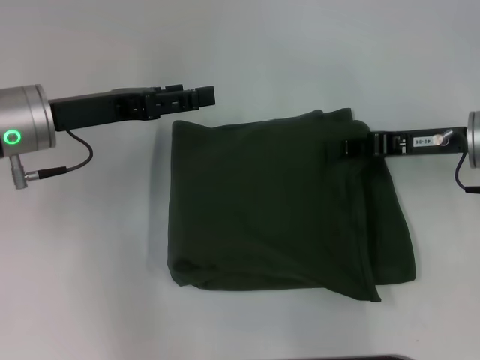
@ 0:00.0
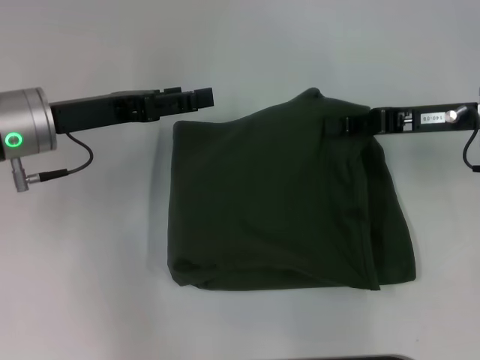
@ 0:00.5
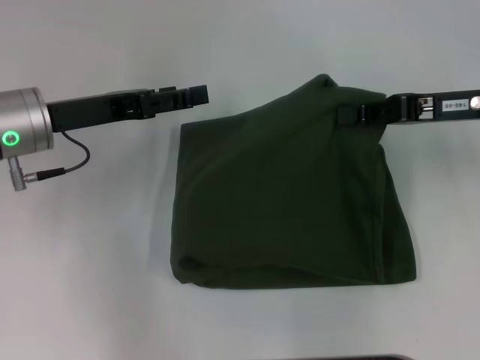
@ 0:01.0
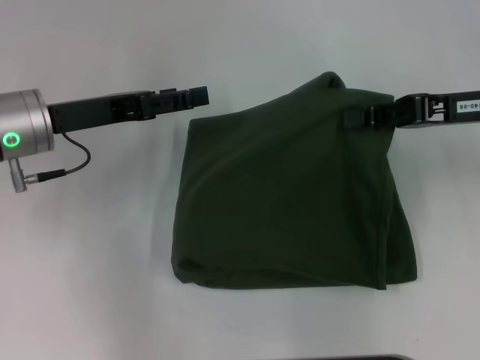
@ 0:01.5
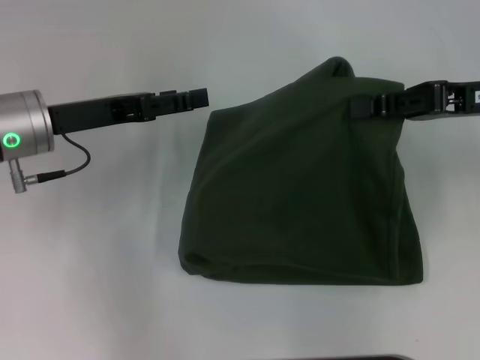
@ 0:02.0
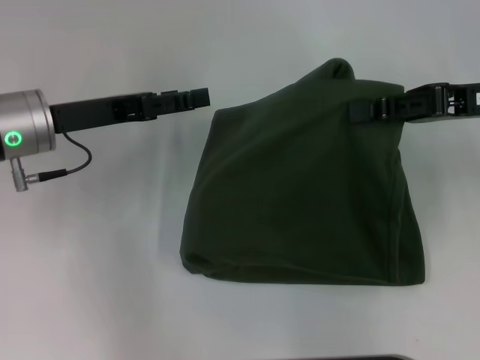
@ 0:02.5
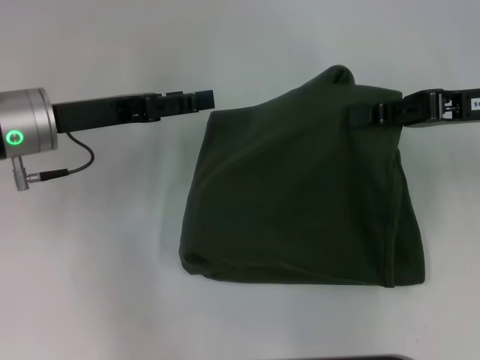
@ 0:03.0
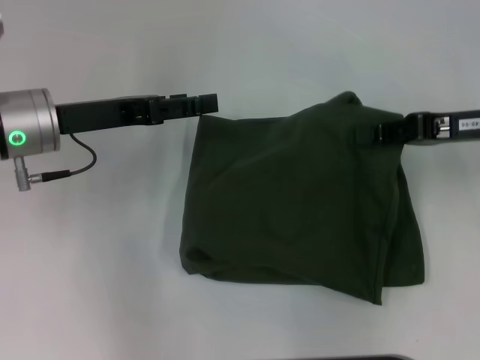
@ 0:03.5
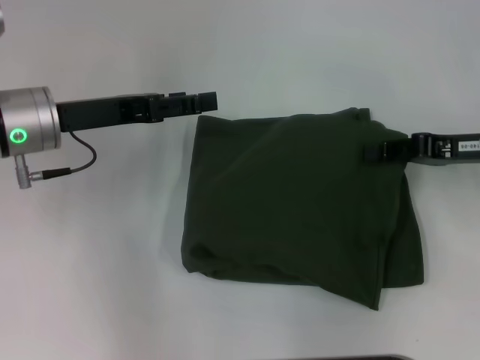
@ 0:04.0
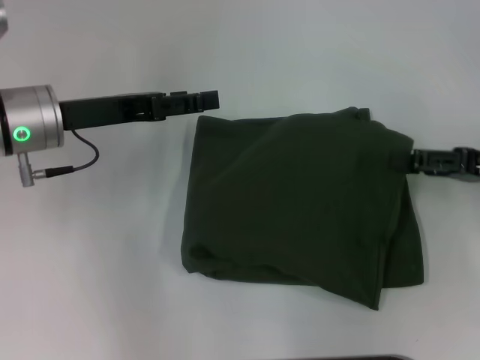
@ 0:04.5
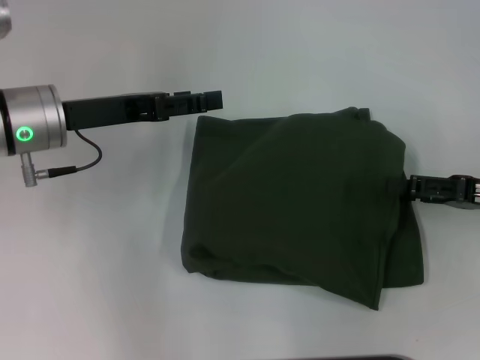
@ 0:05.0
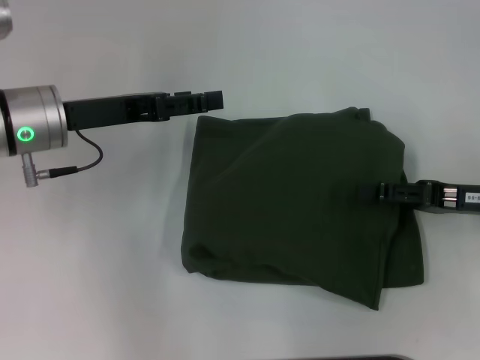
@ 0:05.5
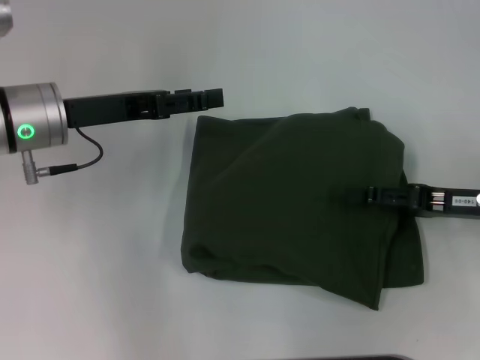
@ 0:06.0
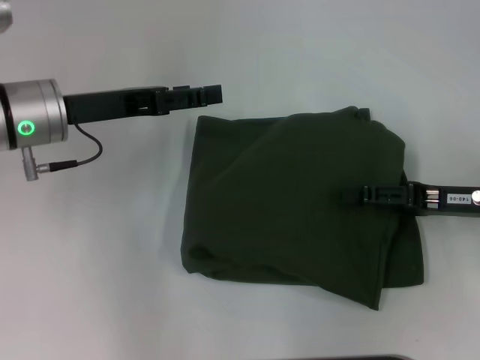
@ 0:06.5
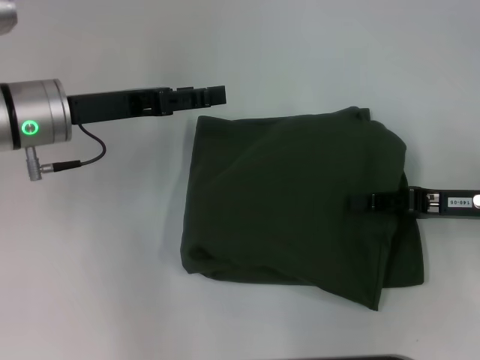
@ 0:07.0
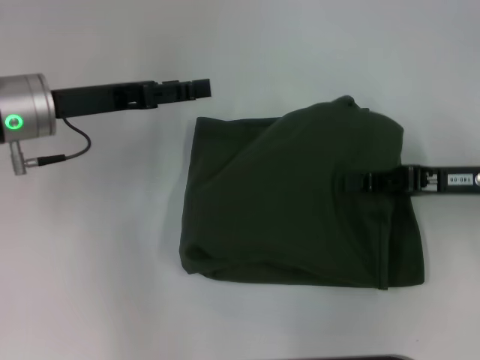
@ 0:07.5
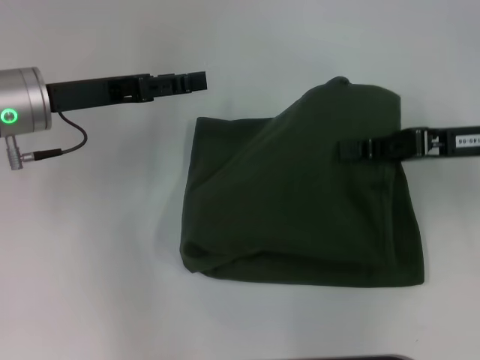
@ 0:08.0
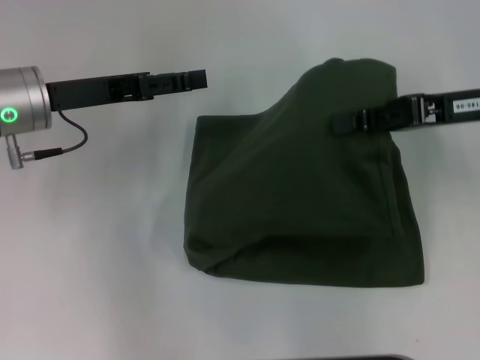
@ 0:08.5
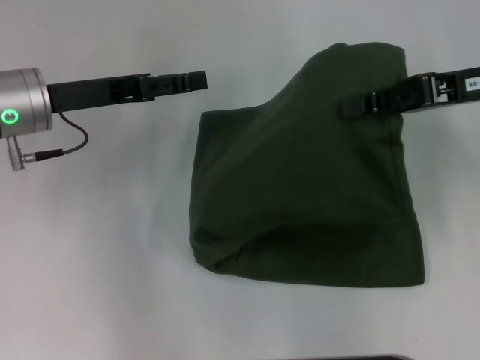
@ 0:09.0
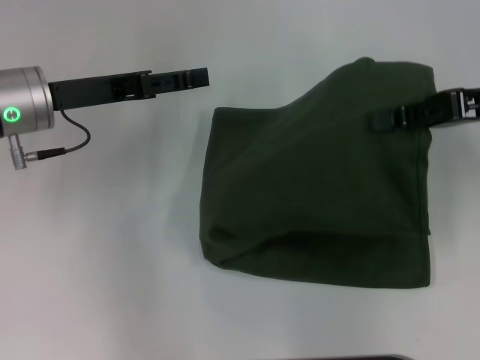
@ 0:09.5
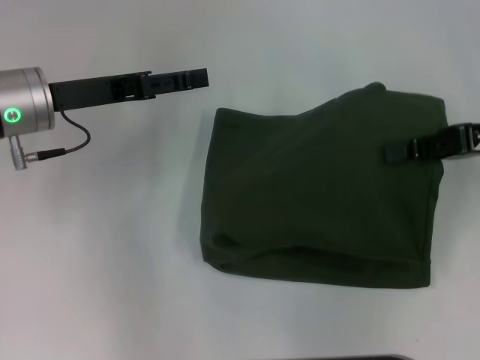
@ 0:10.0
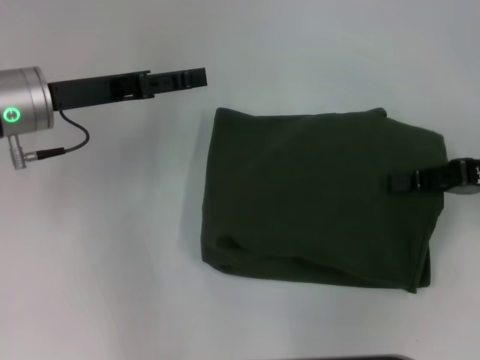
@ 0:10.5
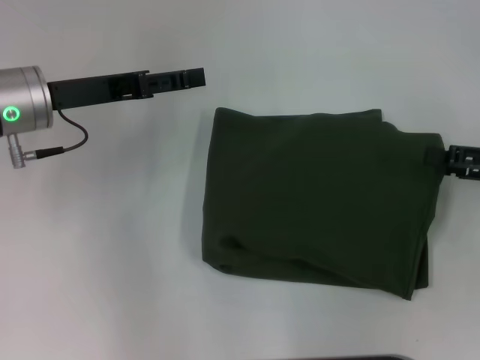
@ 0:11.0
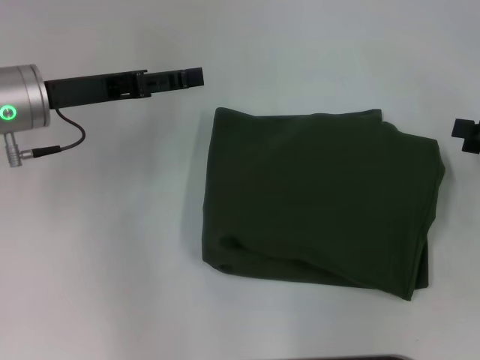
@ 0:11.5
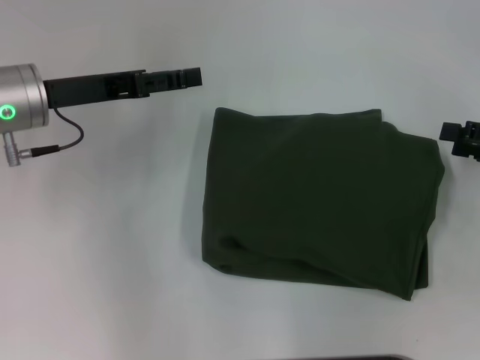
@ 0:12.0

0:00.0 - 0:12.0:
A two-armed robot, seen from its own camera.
0:00.0 - 0:02.0: The right gripper heads upward, covering about 5 cm.
0:02.0 - 0:04.0: The right gripper moves downward, some 5 cm.
0:04.0 - 0:06.0: The right gripper changes place by about 5 cm, and opens up.
0:06.0 - 0:08.0: The right gripper is displaced upward by approximately 5 cm, and closes up.
0:08.0 - 0:10.0: The grippers stay close to where they were, moving slightly.
0:10.0 - 0:12.0: The right gripper goes some 5 cm to the right, and opens its fingers.

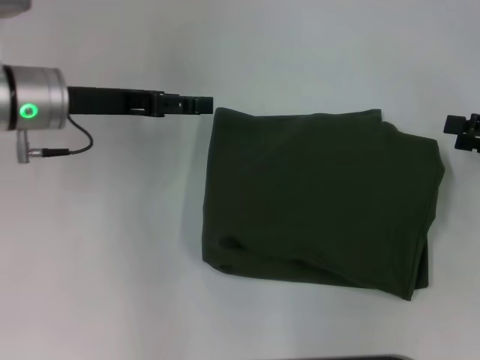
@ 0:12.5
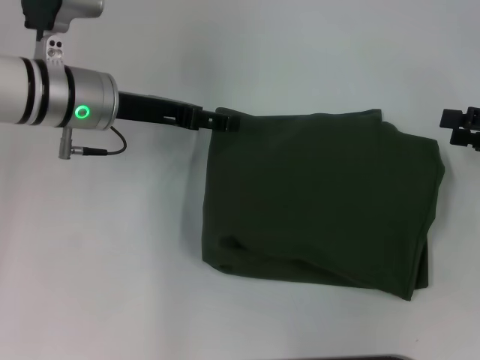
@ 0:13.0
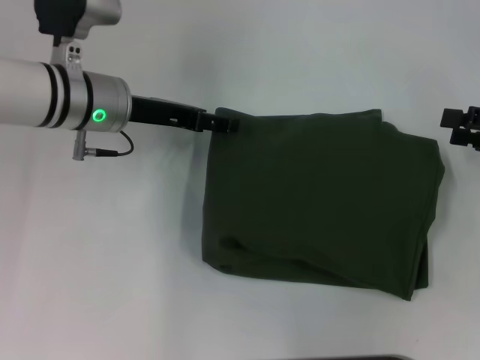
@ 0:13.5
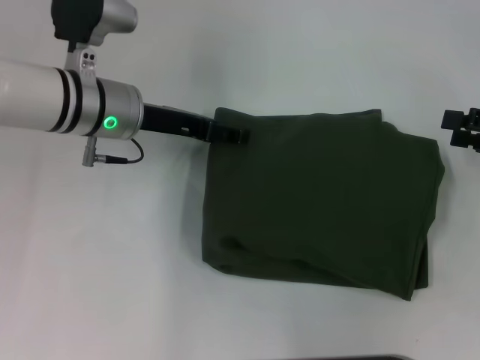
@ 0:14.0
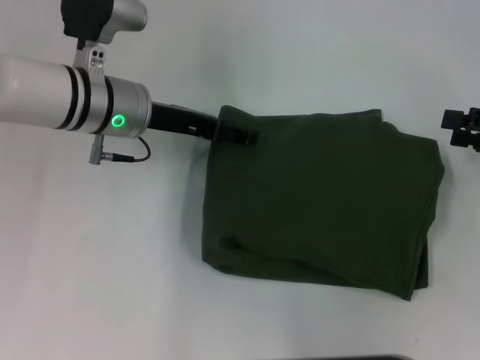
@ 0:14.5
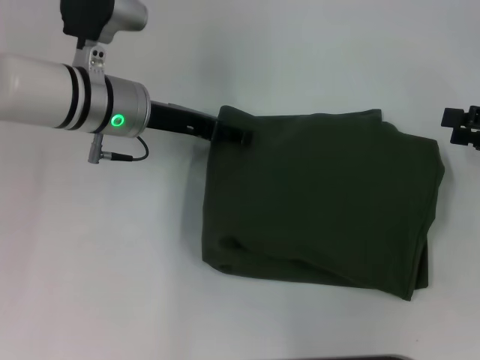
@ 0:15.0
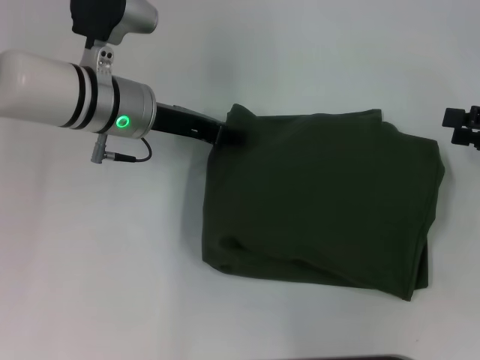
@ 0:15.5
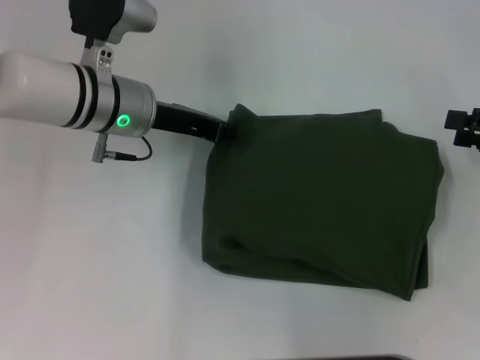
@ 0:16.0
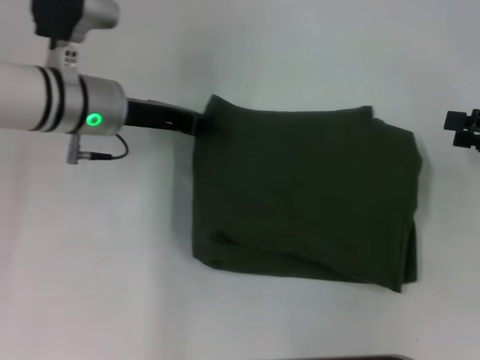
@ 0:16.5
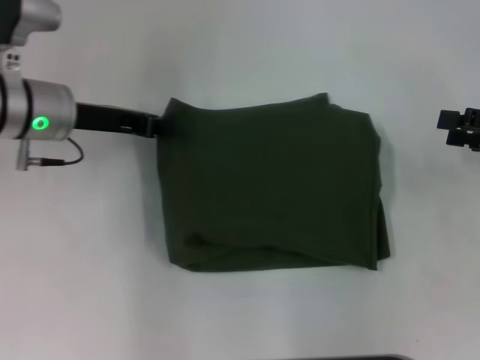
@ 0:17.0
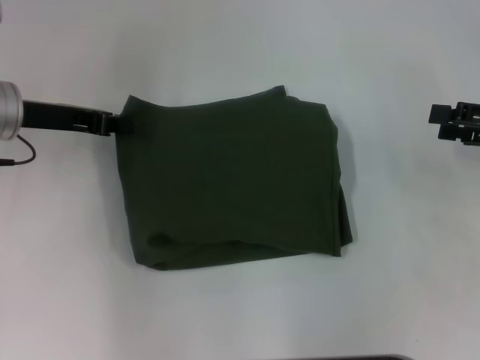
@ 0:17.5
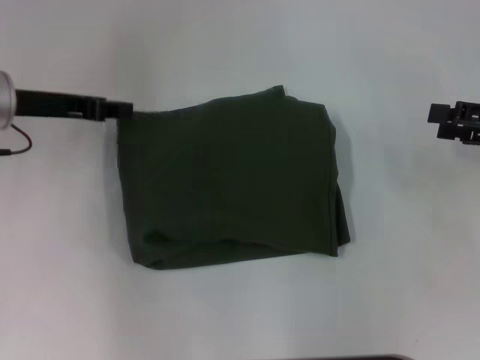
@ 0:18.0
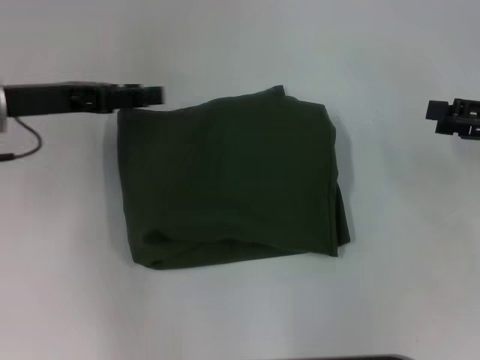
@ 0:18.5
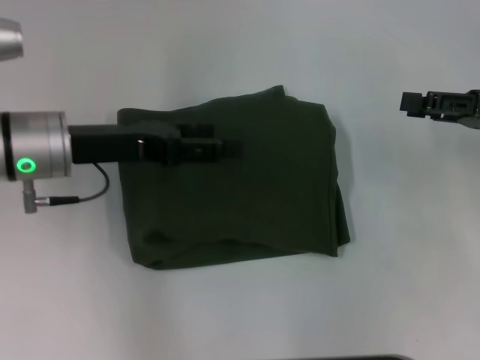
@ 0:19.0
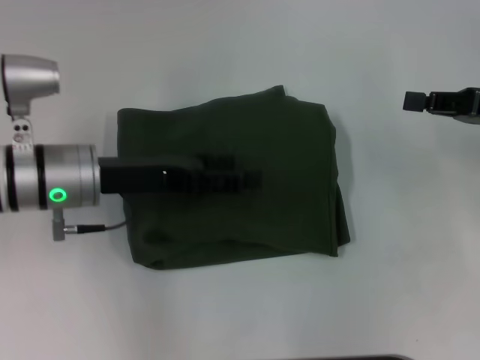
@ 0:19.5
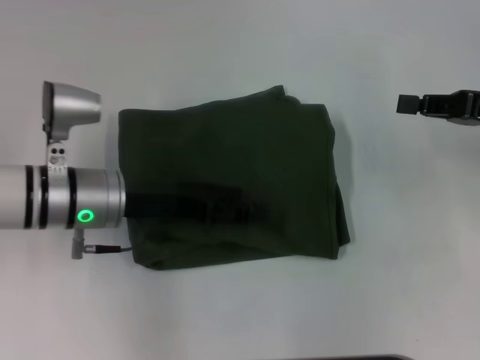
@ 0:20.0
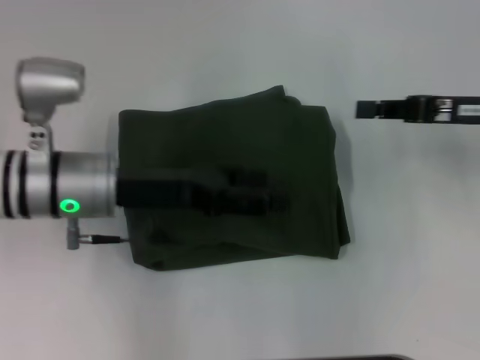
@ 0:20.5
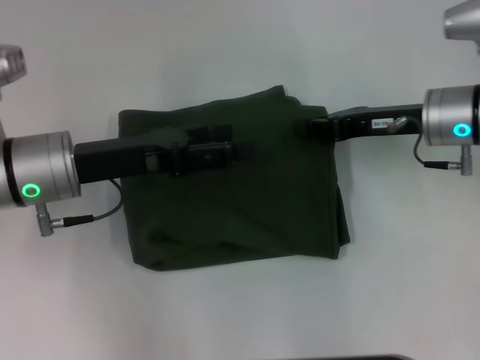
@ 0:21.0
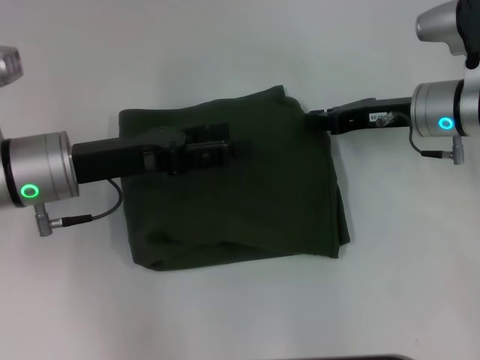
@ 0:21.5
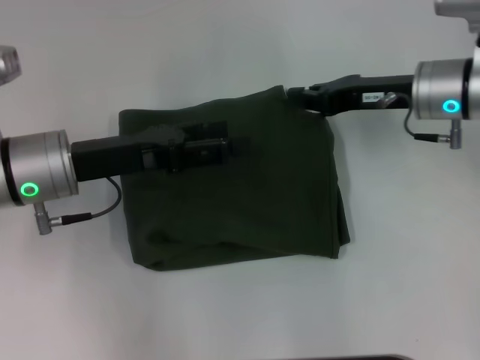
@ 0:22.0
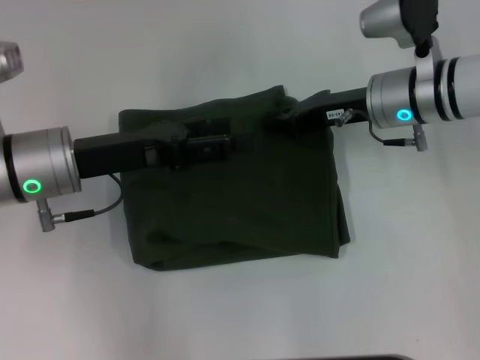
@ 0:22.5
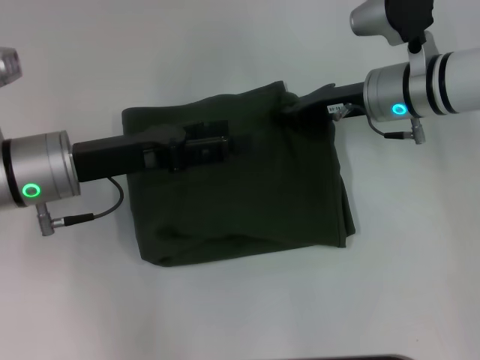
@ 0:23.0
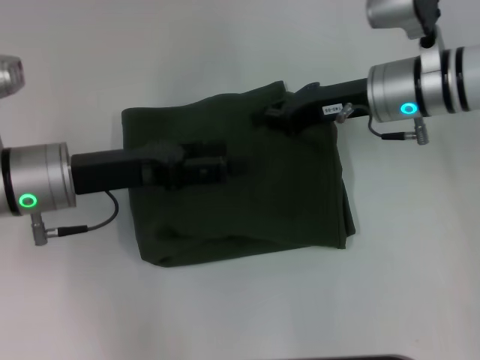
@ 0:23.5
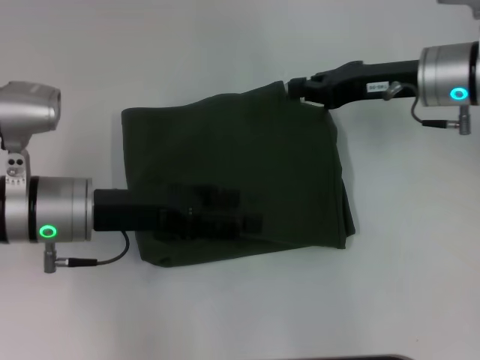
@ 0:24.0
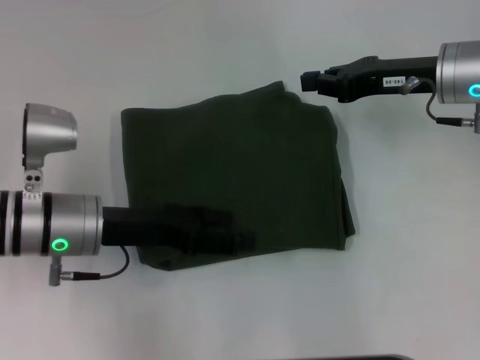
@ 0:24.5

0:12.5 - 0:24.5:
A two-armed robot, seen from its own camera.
0:12.5 - 0:14.5: The left gripper goes about 5 cm to the right.
0:14.5 - 0:16.5: The left gripper closes.
0:16.5 - 0:18.5: The left gripper is displaced to the left by about 10 cm, and opens up.
0:18.5 - 0:20.5: The right gripper travels to the left by approximately 5 cm, and closes its fingers. The left gripper travels to the right and backward by about 10 cm, and opens up.
0:20.5 - 0:22.5: The right gripper goes approximately 15 cm to the left and forward.
0:22.5 - 0:24.5: The left gripper moves roughly 5 cm. The right gripper moves to the right, approximately 5 cm.

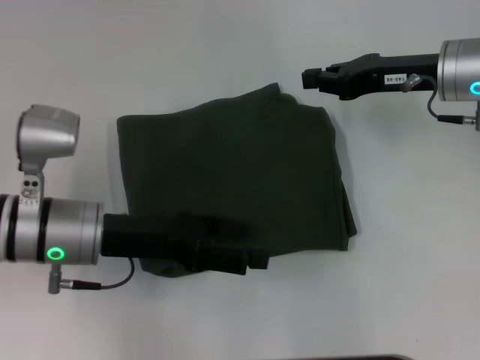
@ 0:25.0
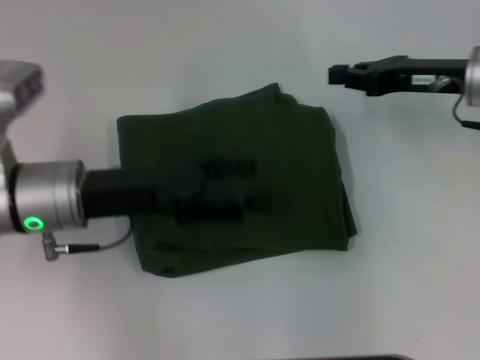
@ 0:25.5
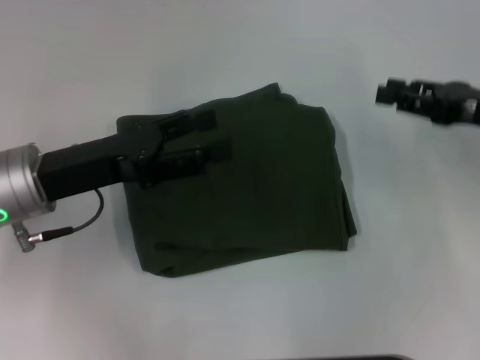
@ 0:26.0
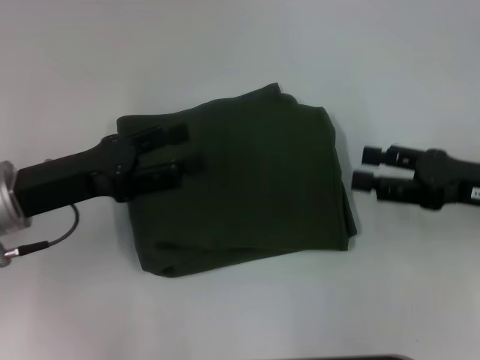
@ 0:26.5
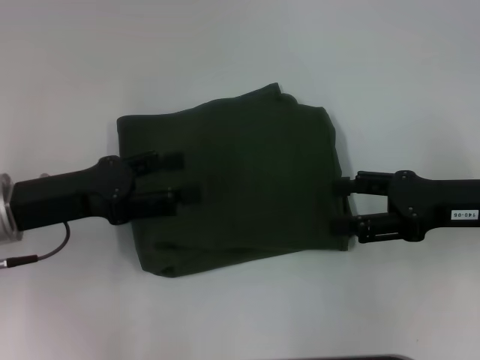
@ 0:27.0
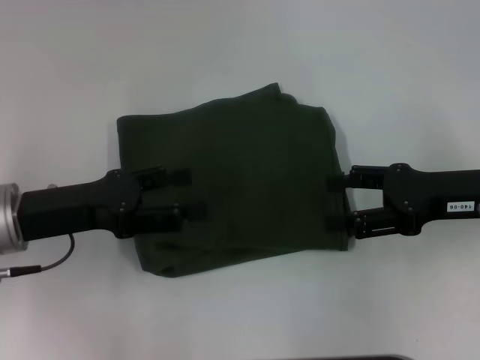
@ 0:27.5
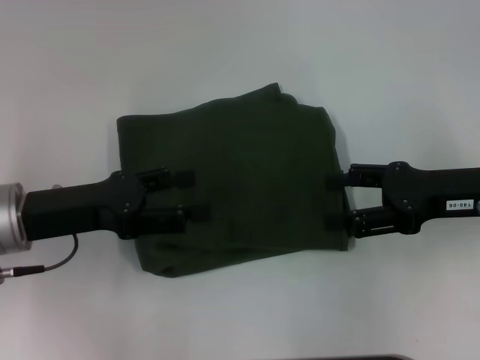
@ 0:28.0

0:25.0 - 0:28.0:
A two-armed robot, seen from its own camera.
0:25.0 - 0:26.5: The left gripper shifts some 5 cm to the left. Meanwhile the right gripper travels backward and to the right by approximately 15 cm, and opens its fingers.
0:26.5 - 0:28.0: The grippers make only small movements.
